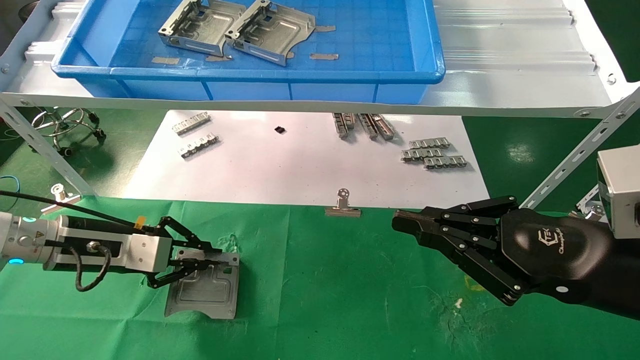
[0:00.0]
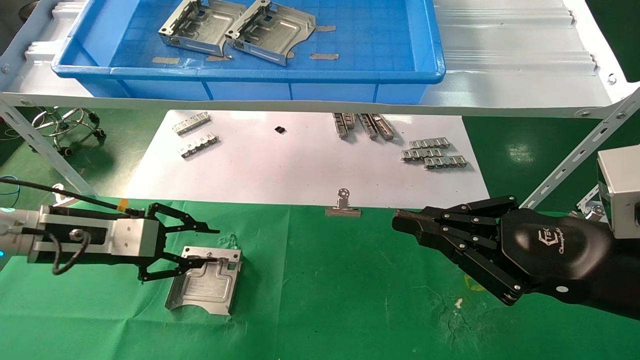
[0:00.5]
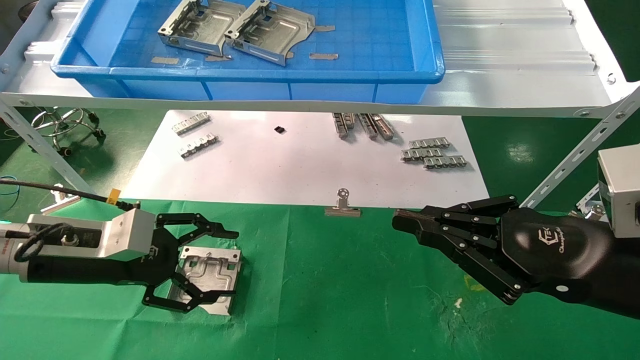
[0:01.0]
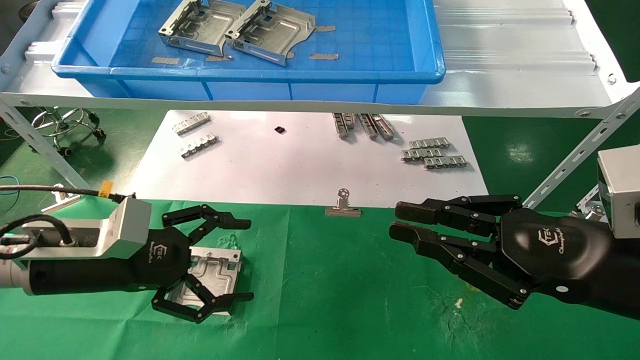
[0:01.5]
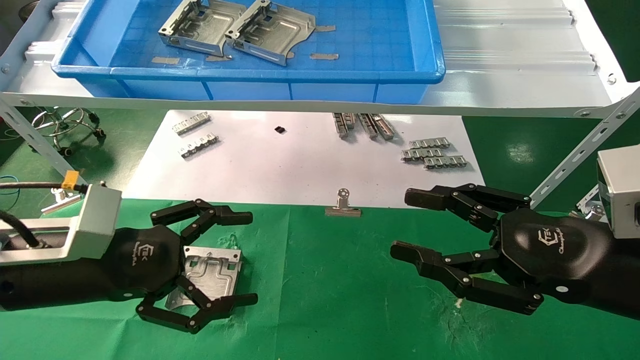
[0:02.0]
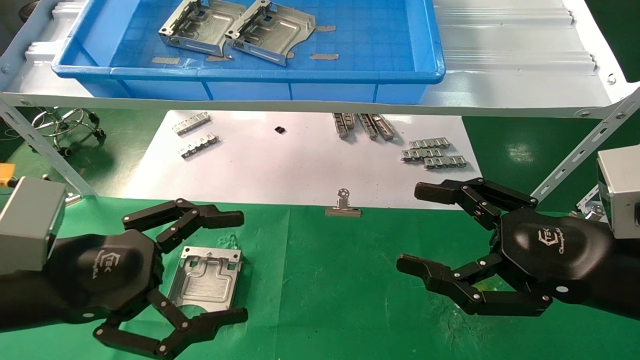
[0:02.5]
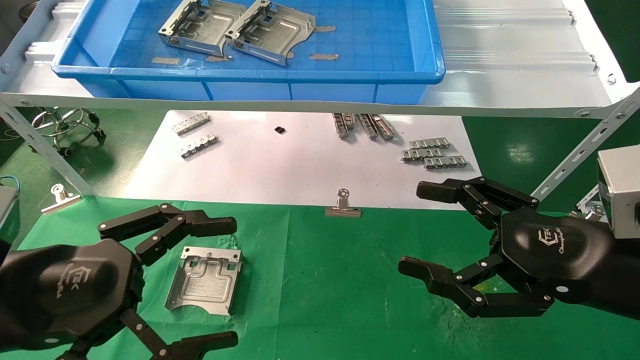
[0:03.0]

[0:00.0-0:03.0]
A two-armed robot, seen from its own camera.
Task of the whole recording: use the mechanical arm to pick up the parts and place them on the table.
0:00.0 to 0:01.5: The left gripper goes some 5 cm backward, and opens.
0:01.5 to 0:03.0: The left gripper shifts approximately 10 cm backward. The right gripper opens up.
